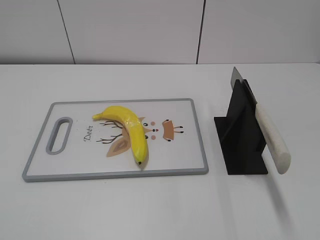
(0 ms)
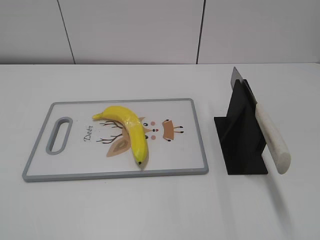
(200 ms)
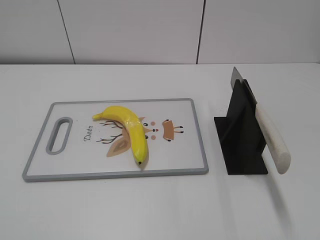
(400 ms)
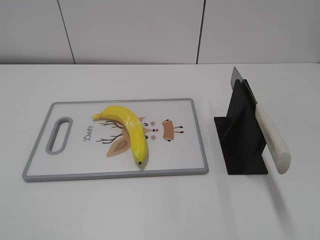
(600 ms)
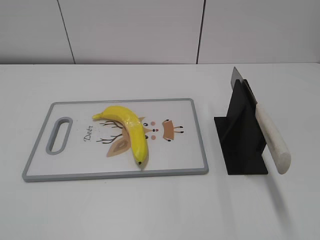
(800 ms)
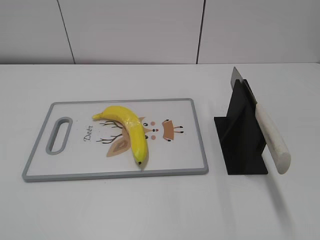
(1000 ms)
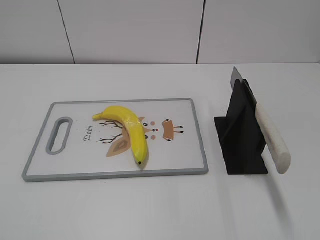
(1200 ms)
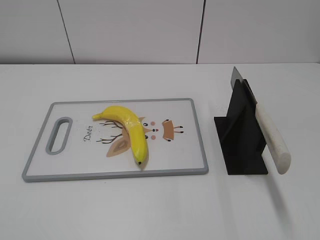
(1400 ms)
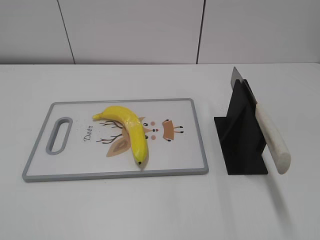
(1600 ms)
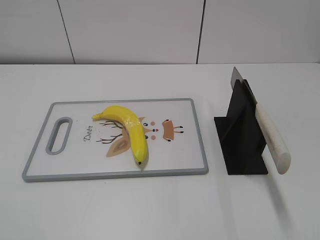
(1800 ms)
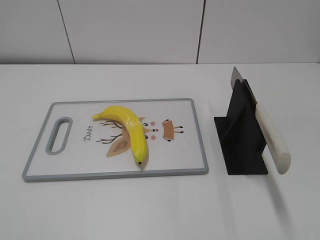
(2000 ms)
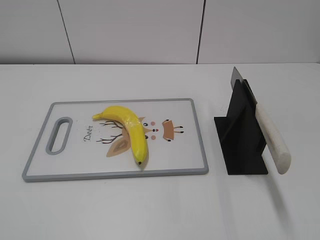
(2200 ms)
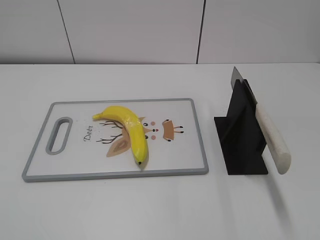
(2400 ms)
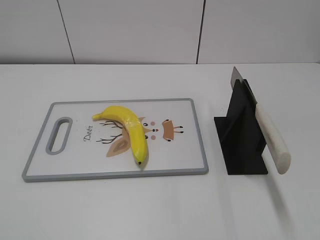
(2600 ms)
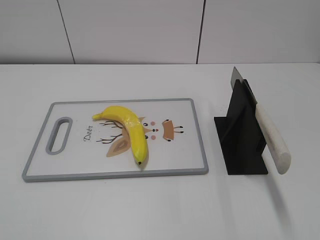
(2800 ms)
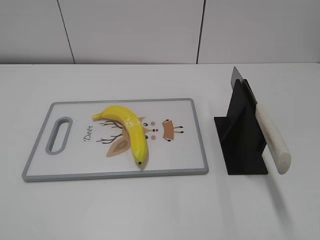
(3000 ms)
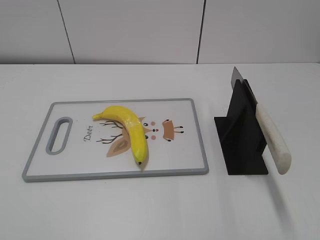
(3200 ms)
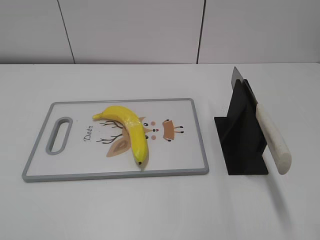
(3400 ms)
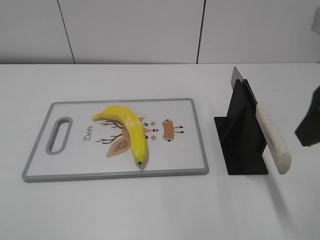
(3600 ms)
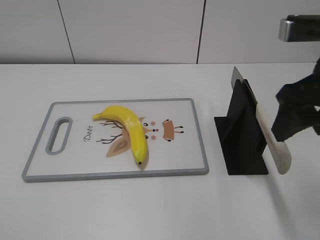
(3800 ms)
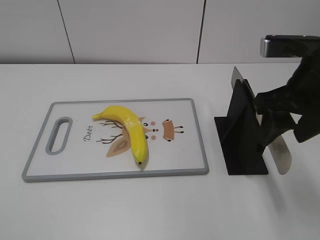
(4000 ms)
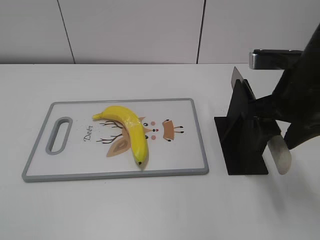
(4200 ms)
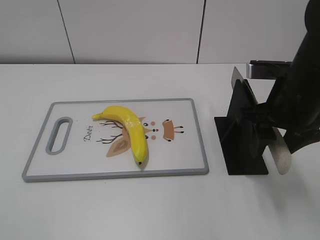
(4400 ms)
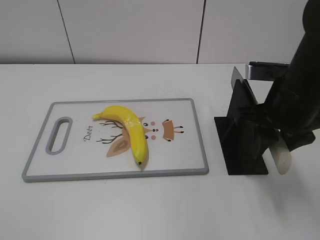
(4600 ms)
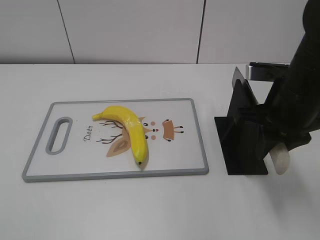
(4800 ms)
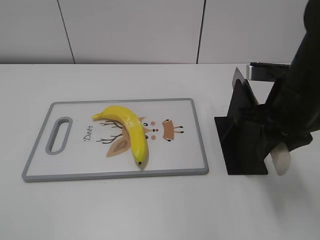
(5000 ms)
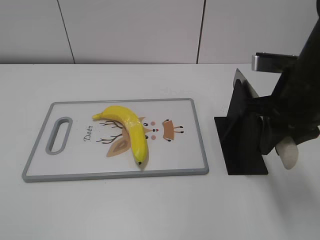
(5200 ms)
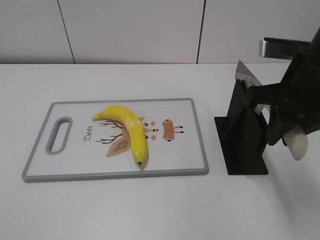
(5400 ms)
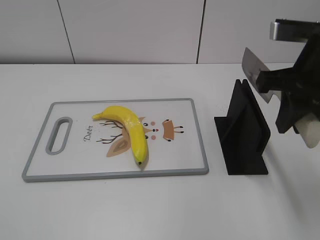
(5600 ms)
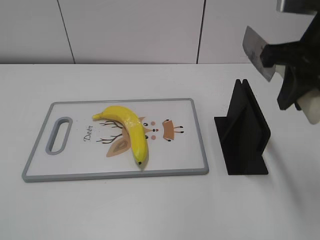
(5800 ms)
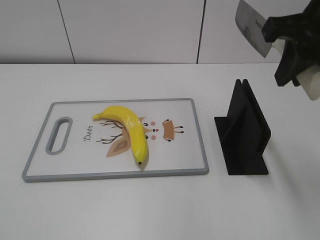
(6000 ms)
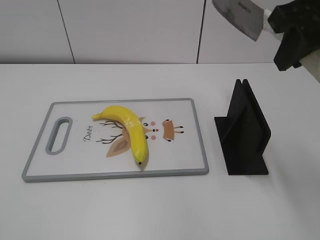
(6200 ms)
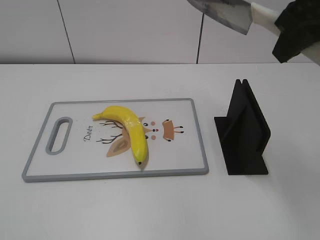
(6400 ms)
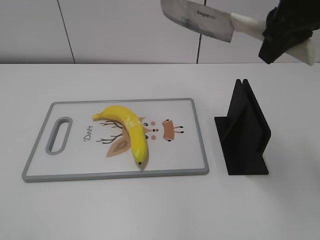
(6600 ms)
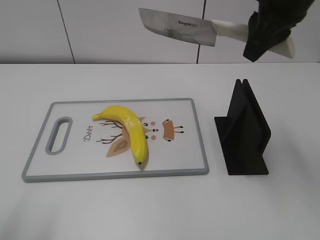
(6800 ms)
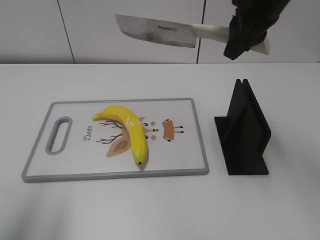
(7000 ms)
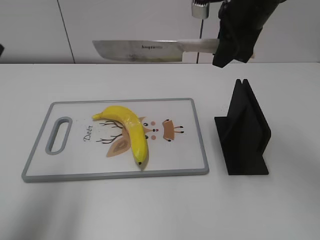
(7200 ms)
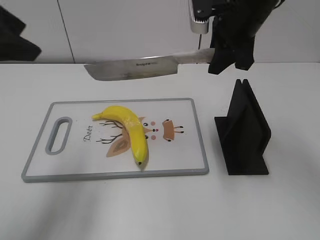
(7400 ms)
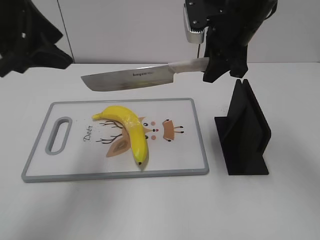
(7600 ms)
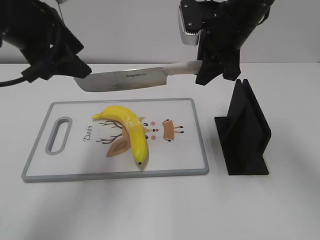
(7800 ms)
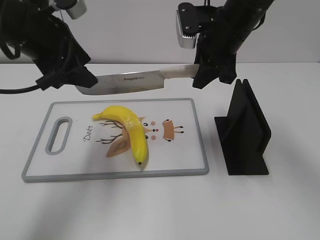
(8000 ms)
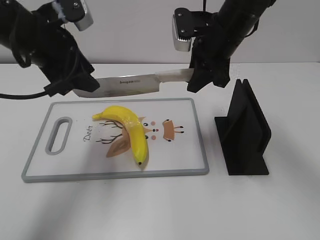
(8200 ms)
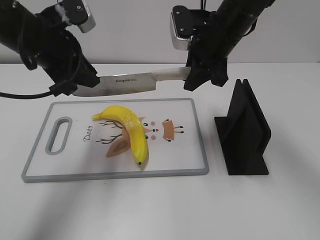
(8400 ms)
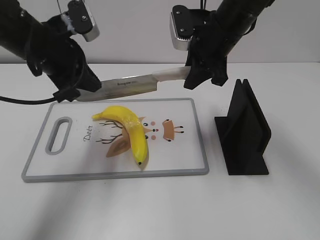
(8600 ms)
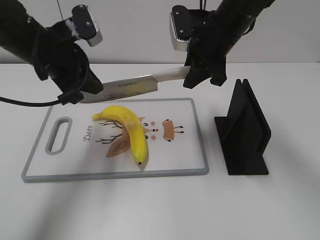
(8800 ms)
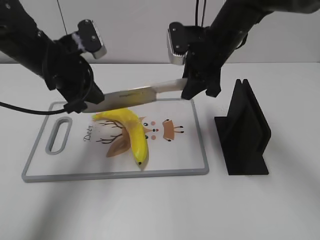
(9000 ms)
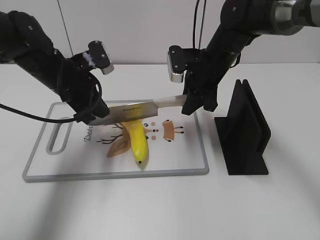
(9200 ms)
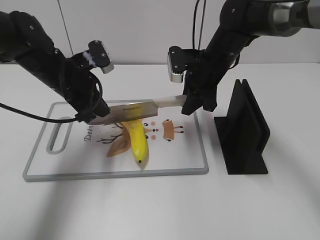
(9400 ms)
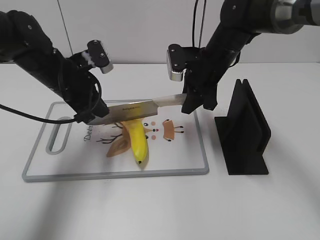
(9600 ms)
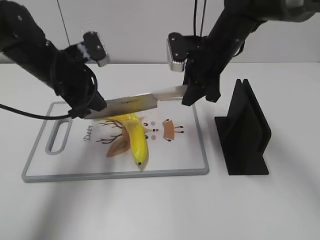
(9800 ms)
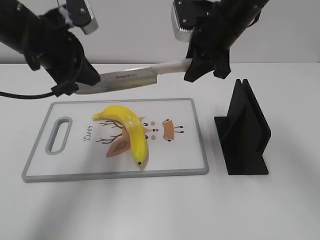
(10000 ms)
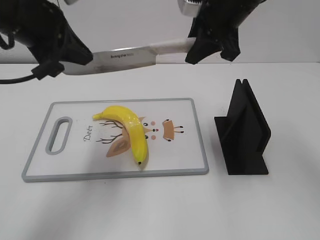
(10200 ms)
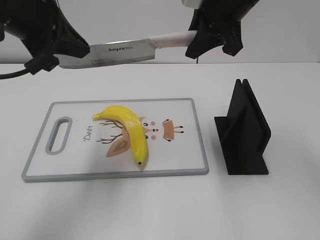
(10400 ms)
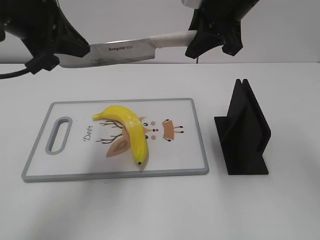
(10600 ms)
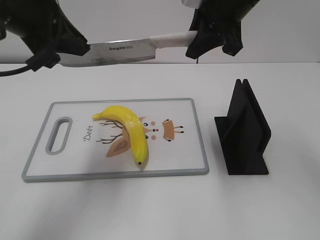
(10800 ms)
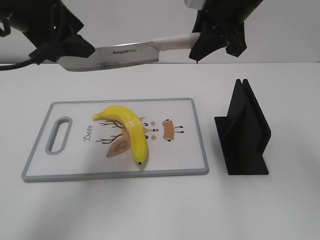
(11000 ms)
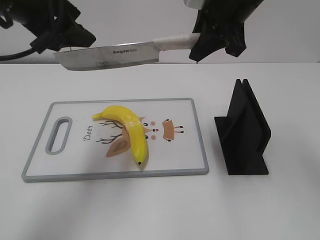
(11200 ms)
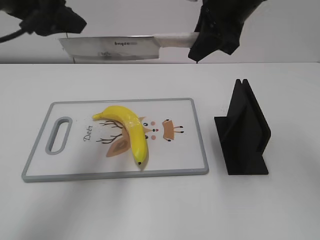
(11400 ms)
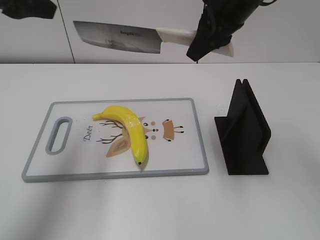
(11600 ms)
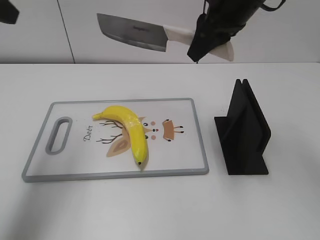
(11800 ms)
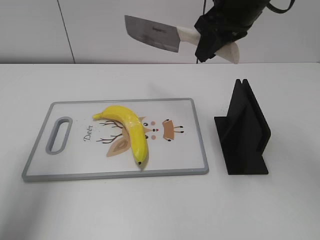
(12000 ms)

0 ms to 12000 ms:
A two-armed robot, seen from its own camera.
Task of the whole recording: cut plastic banana.
Step, 0 ms to 6000 ms: Grab the knife handle with your right hand.
Step, 6200 ms to 10600 ms: Hold the blade with your left hand.
3000 ms to 4400 ms: The right gripper travels forward, downward and to the left by roughly 25 cm.
4400 ms to 6000 ms: The right gripper travels upward by approximately 10 cm, and closes up.
6000 ms to 7600 ms: The left gripper moves forward, approximately 30 cm; the right gripper travels forward, downward and to the left by some 15 cm.
7600 ms to 9000 ms: The right gripper goes roughly 5 cm downward, while the left gripper goes some 15 cm downward and forward, and closes.
9000 ms to 10400 ms: The grippers both shift upward by roughly 10 cm.
10400 ms to 12000 ms: The left gripper travels to the left by approximately 10 cm, and opens up.

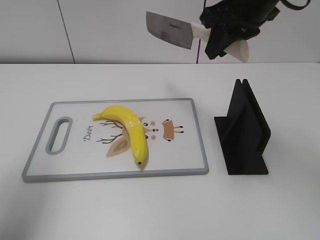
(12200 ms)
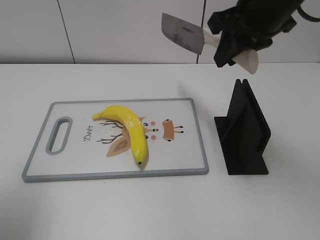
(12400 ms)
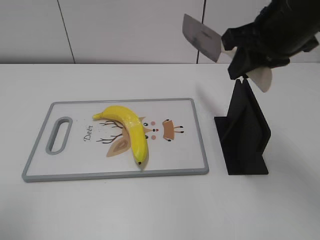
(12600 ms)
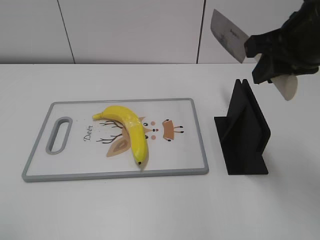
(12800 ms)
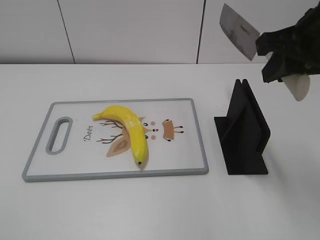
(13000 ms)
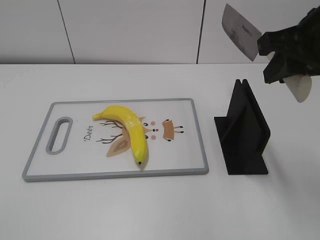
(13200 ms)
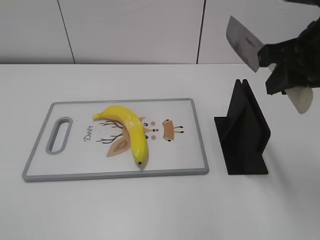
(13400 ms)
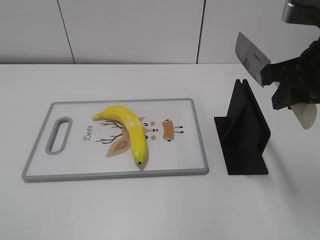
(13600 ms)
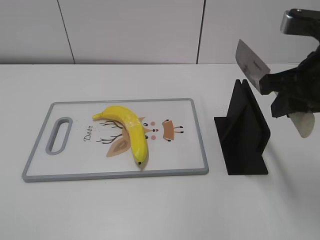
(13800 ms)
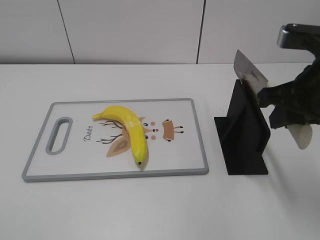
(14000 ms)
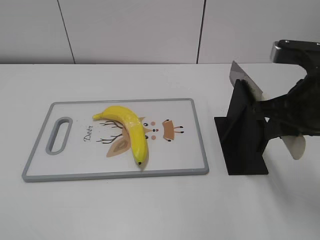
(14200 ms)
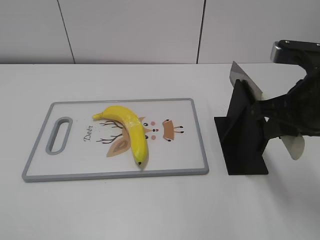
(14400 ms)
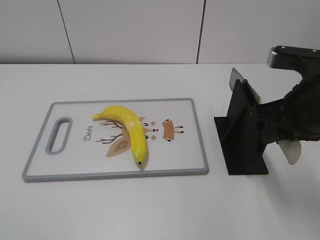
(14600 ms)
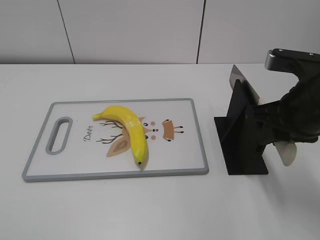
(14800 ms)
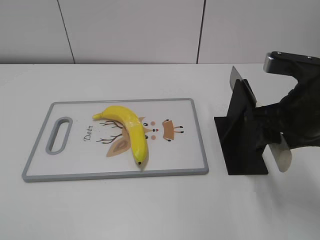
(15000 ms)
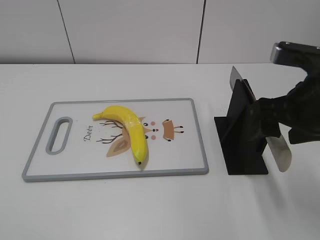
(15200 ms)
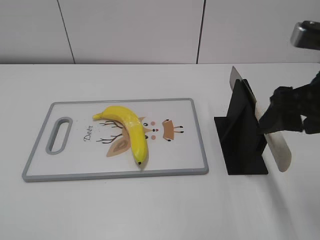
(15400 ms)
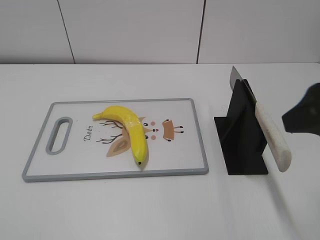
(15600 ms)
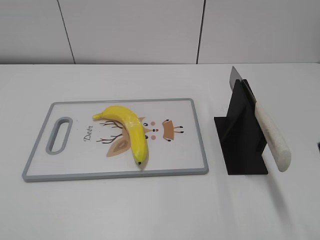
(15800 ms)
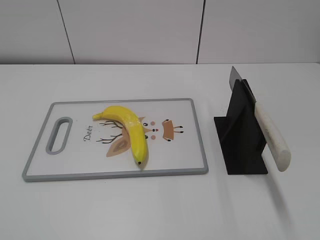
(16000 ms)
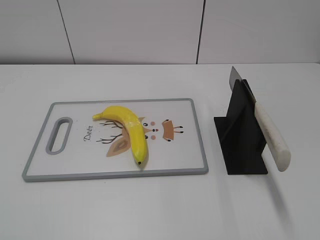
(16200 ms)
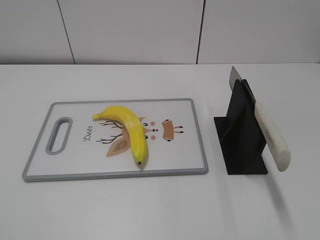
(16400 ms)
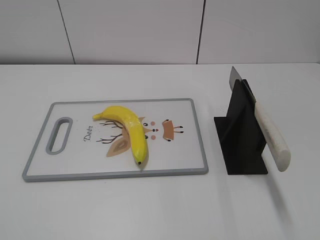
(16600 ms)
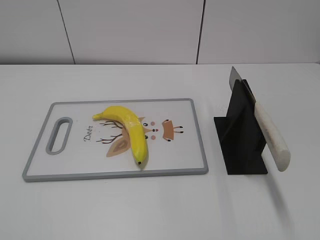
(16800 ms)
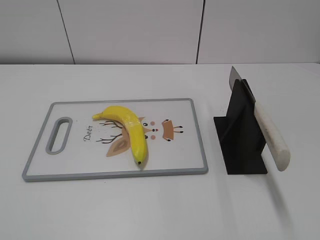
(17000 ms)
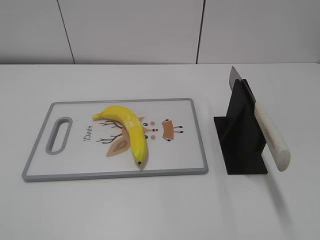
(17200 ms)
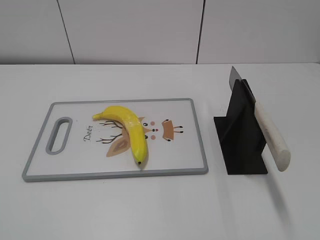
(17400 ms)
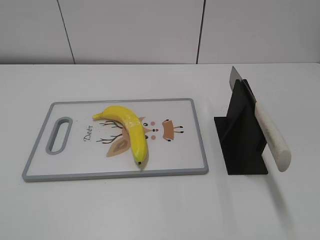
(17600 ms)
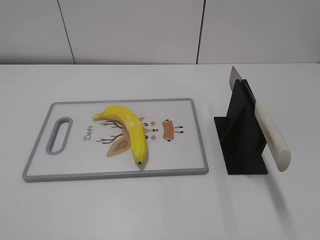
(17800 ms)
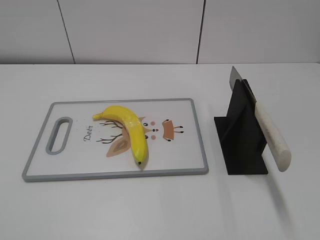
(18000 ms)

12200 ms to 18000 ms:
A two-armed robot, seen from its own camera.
Task of the whole recording: cut plastic banana.
Step, 12200 ms to 13600 ms: Secure the blade with your left hand.
Step, 13800 ms to 18000 ms: Place the knife on the storage rack with your right hand.
12200 ms to 13600 ms: The left gripper travels backward by about 25 cm. Meanwhile the right gripper moves backward and to the right, some 15 cm.
13600 ms to 15000 ms: The right gripper is displaced downward by approximately 5 cm, and opens up.
15000 ms to 16600 ms: The right gripper travels backward and to the right by roughly 25 cm, and opens up.

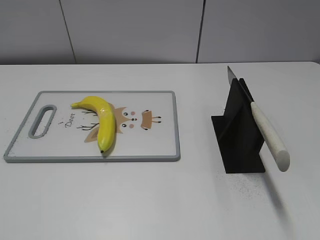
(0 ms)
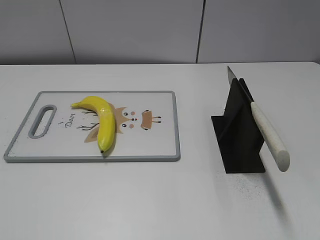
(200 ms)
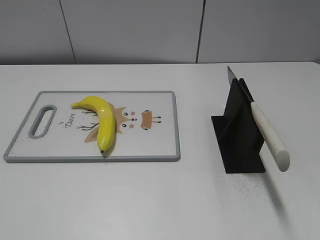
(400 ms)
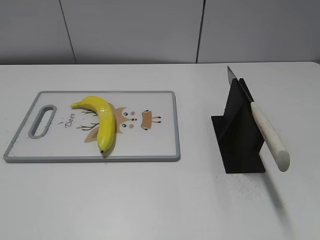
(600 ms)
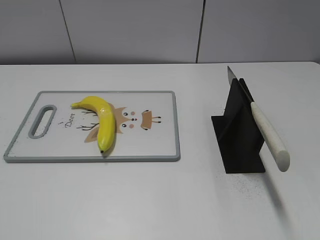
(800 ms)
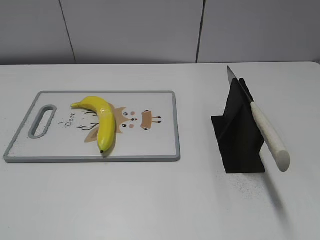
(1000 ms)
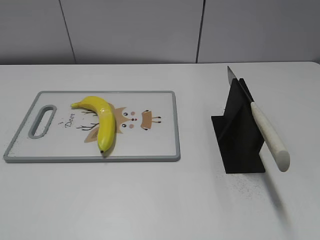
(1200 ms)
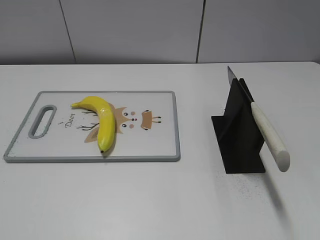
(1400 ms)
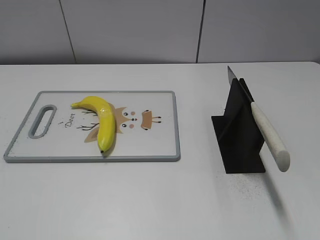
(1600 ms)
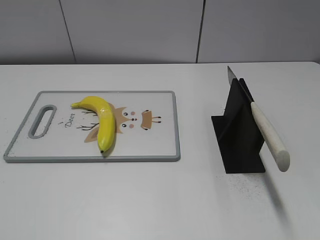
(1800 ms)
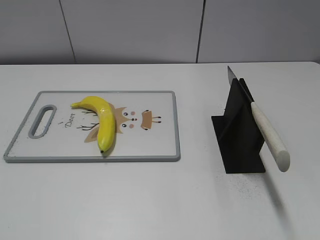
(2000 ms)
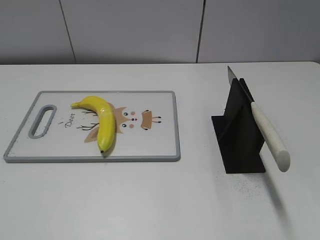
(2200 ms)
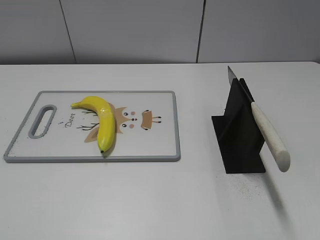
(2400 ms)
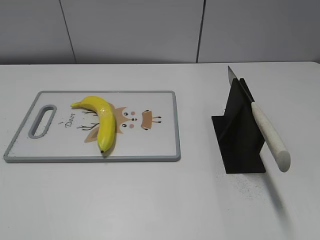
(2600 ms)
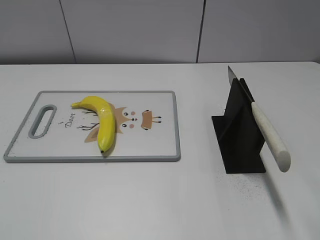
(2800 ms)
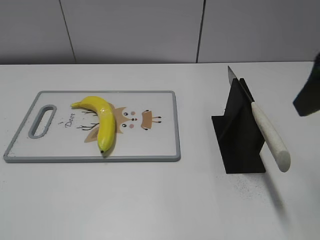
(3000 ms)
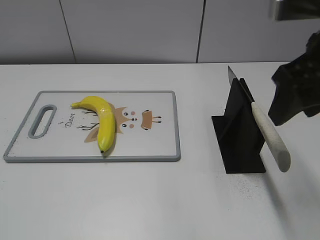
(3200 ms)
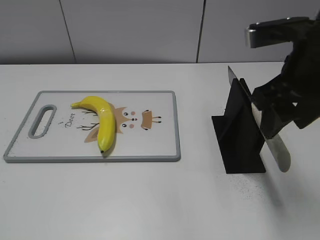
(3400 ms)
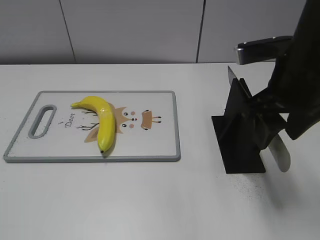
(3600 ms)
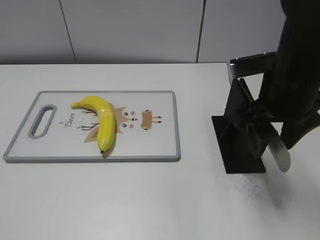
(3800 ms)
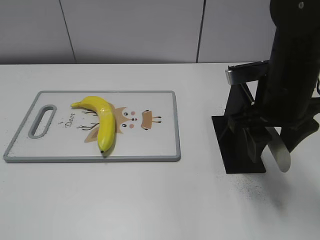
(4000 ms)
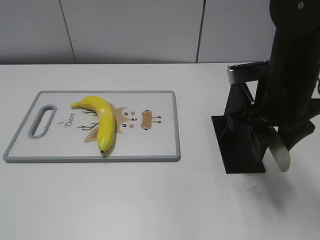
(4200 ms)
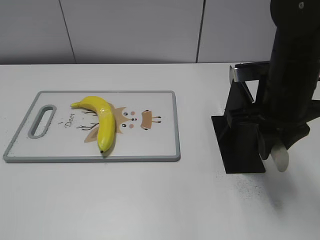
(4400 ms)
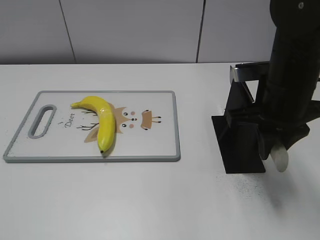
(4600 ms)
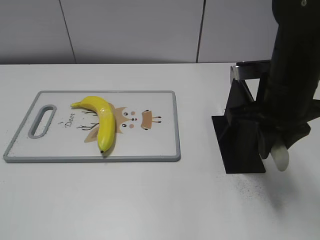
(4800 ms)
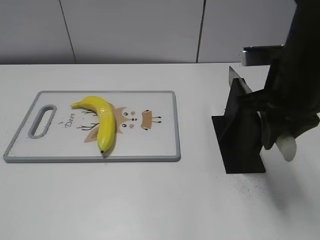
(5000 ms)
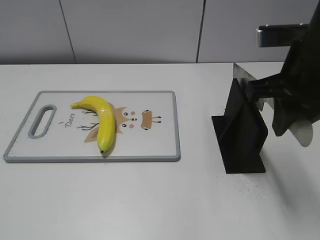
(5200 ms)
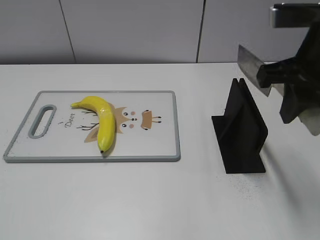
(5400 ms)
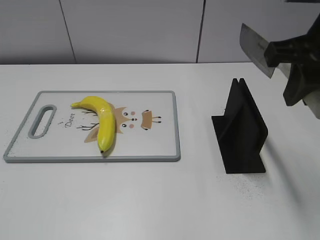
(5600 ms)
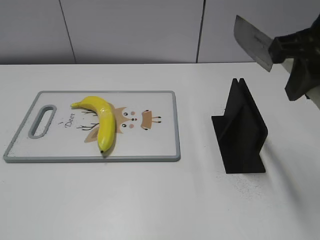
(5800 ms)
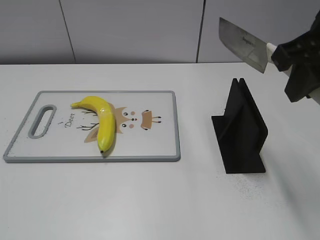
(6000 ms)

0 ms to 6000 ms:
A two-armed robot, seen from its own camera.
Task of the whole recording: cut plastic banana.
Step, 0 ms to 5600 ms: Grab the knife handle with your right hand.
1600 ms to 3000 ms: The right gripper travels forward by roughly 20 cm.
3000 ms to 4400 ms: The right gripper is displaced downward, forward and to the left by about 15 cm, and closes up.
4400 ms to 6000 ms: The right gripper is displaced upward by roughly 10 cm.
